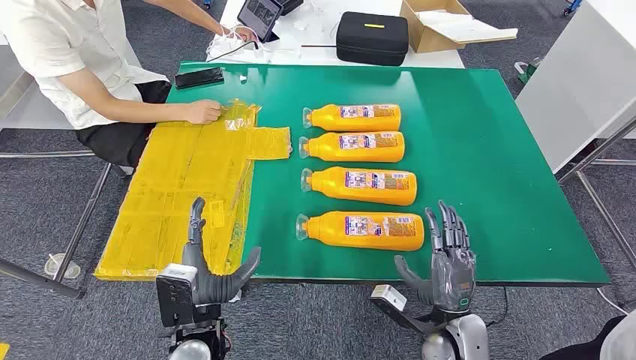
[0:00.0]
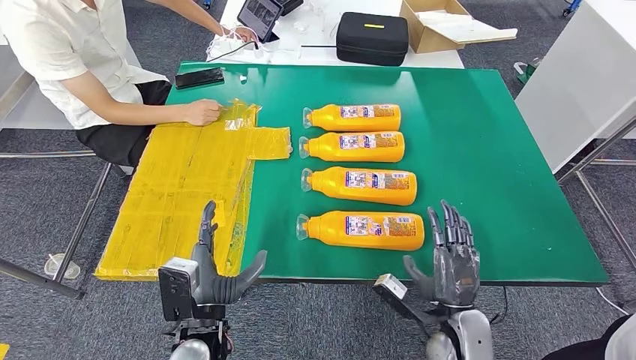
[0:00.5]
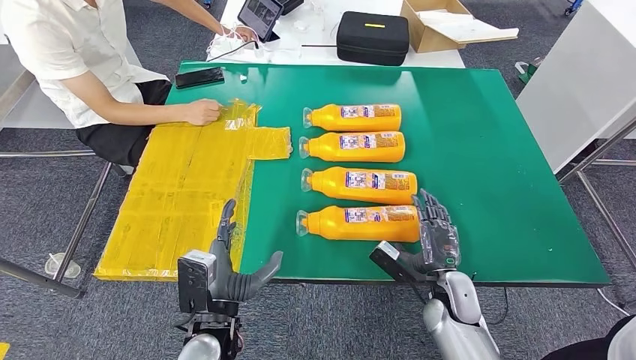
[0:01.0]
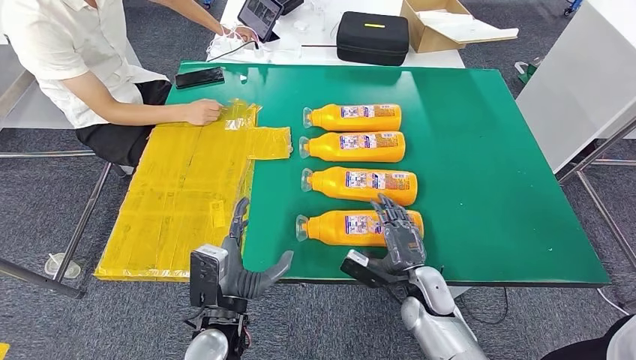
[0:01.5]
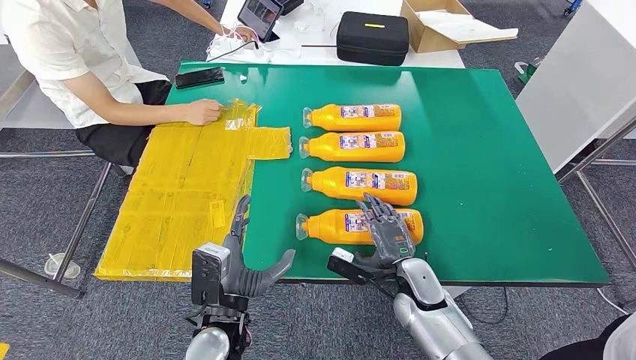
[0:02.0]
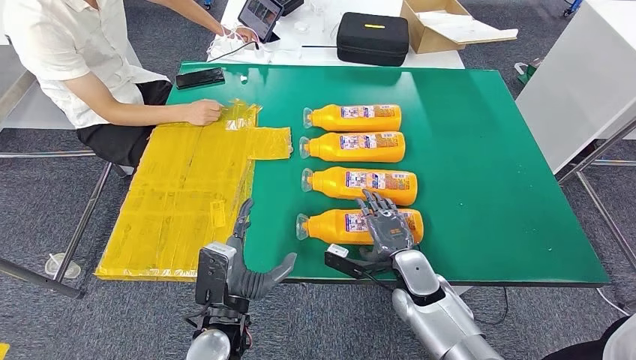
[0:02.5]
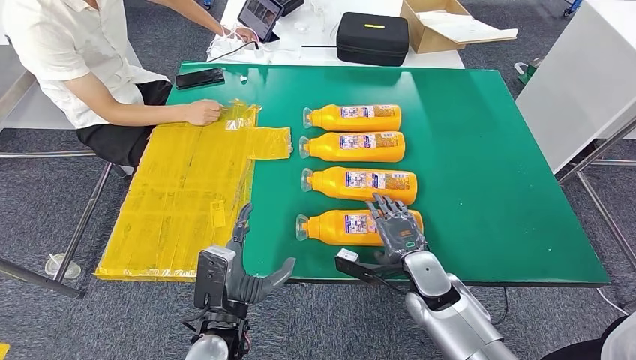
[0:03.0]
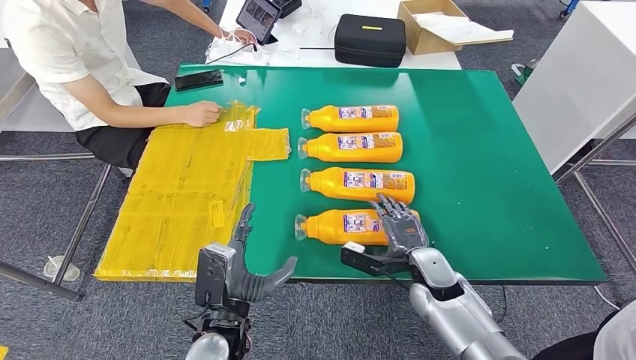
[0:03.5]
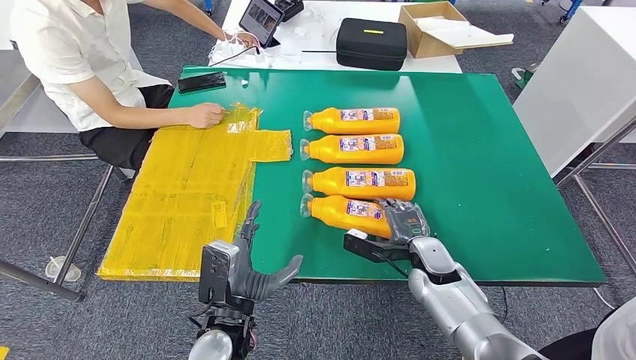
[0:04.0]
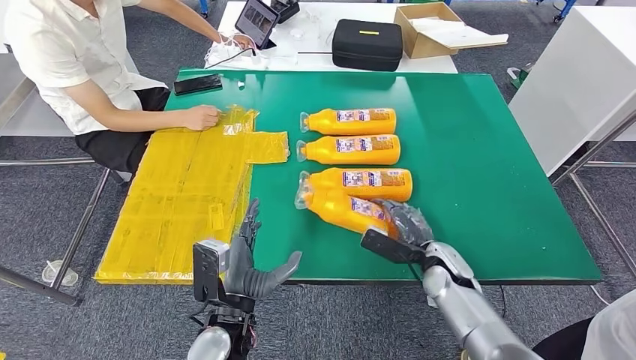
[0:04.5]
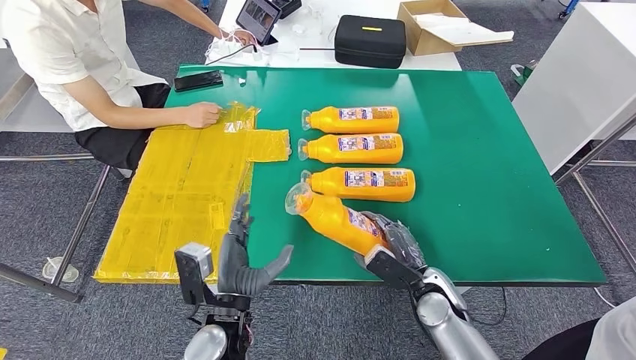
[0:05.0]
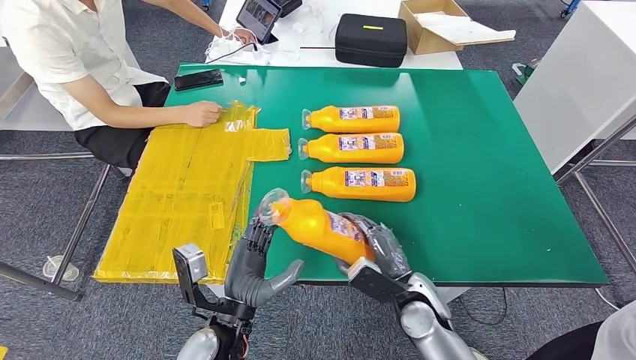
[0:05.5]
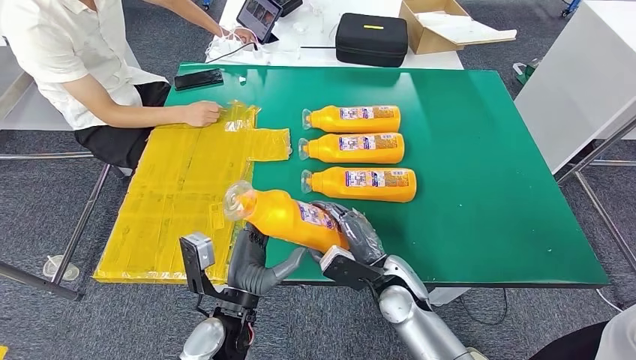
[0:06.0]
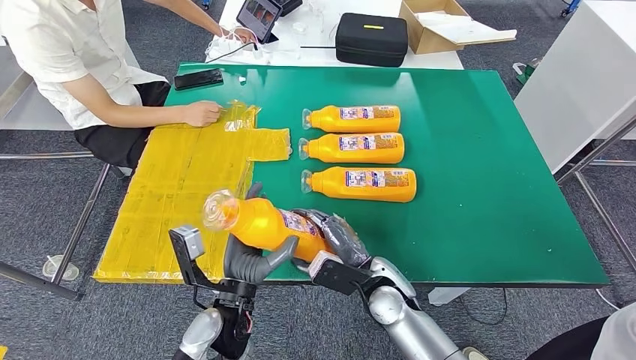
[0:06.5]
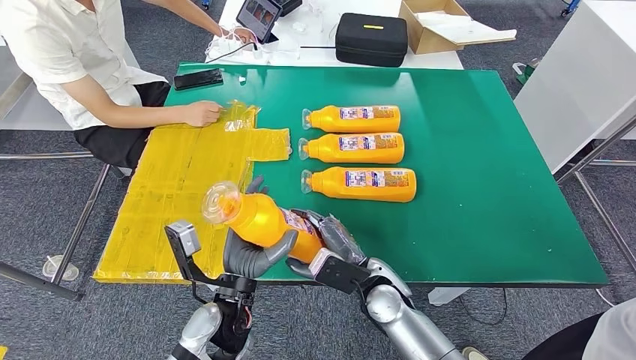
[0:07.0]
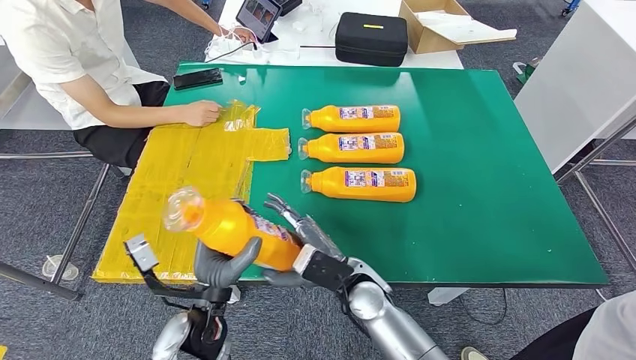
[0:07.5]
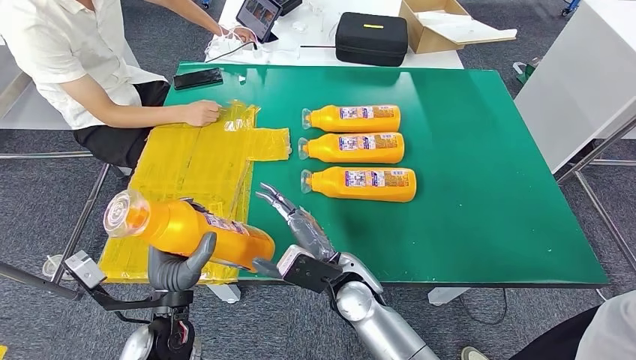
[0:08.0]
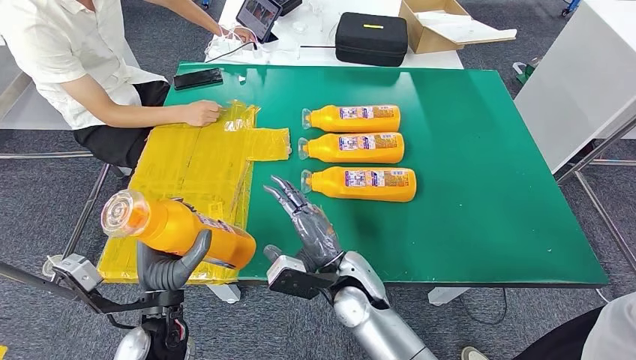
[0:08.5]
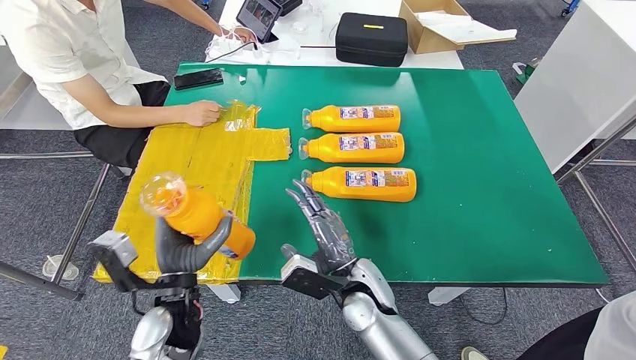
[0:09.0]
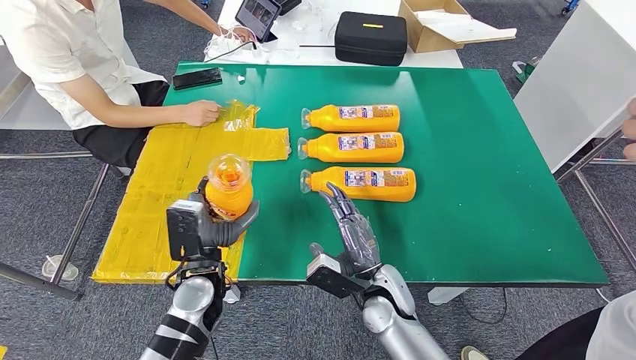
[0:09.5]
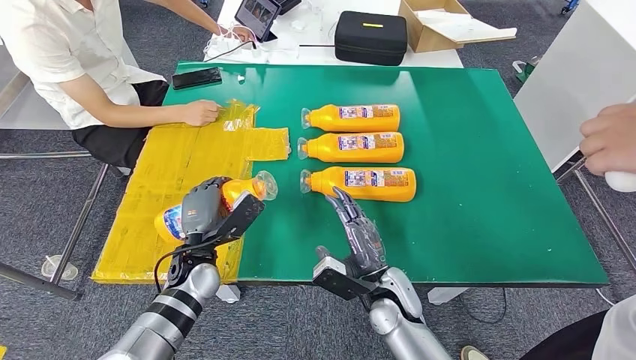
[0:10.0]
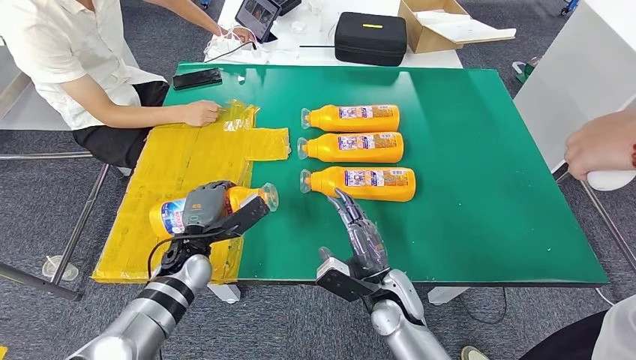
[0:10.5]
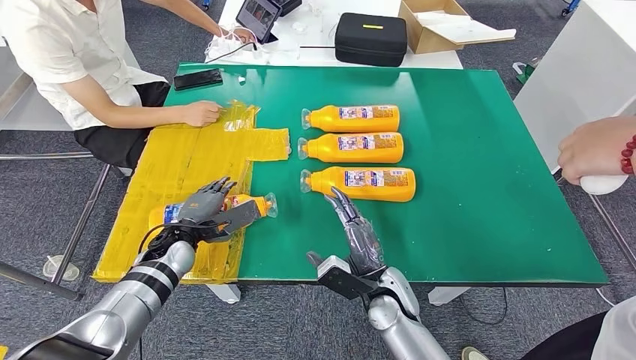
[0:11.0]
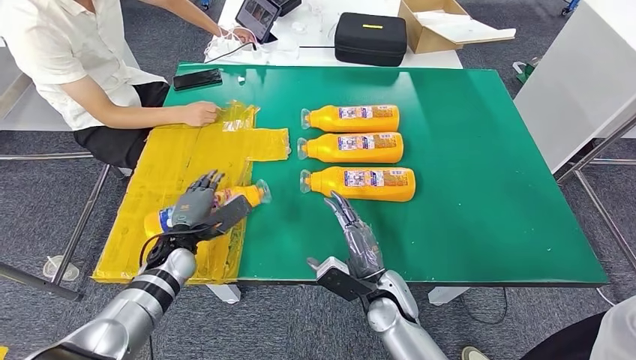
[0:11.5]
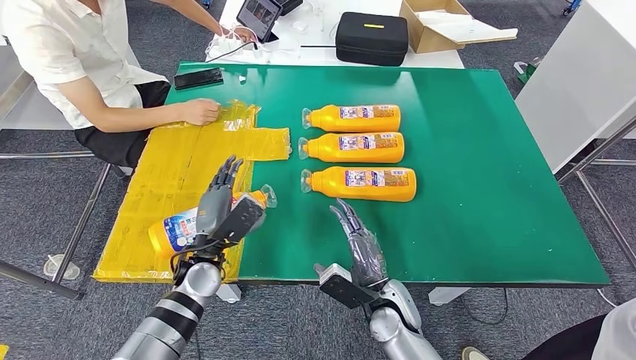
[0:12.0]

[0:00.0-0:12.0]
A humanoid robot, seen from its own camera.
Step, 0:00.0 to 0:06.0: Take the fast-moving consumer goods bottle from the table.
Step, 0:07.0 to 0:11.5: Flip the fast-moving consumer goods bottle to the front side.
0:06.0 to 0:08.0: The hands both shift to the left by some 10 cm.
0:08.0 to 0:10.0: The right hand shifts some 10 cm to the right and downward, while the left hand is displaced forward by about 10 cm.
0:10.0 to 0:12.0: The left hand travels to the left and back again, roughly 5 cm each way.

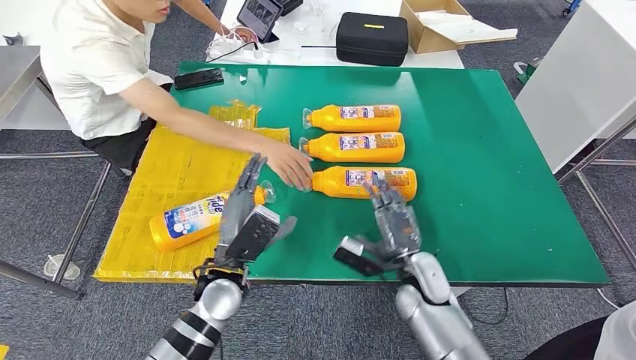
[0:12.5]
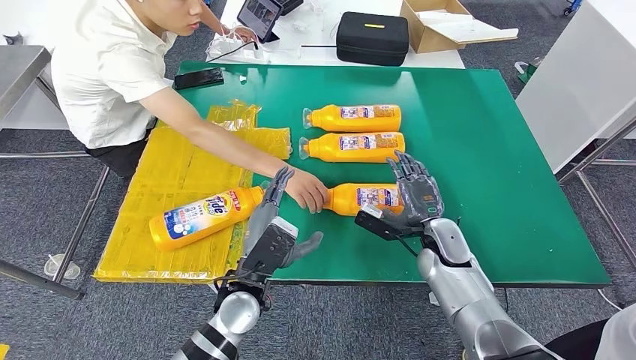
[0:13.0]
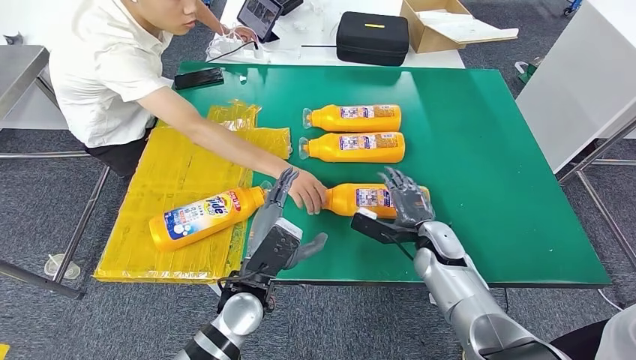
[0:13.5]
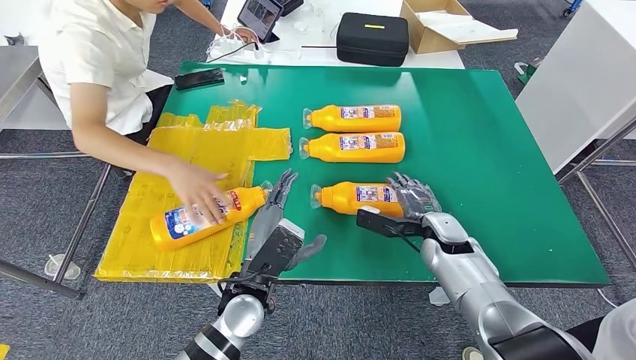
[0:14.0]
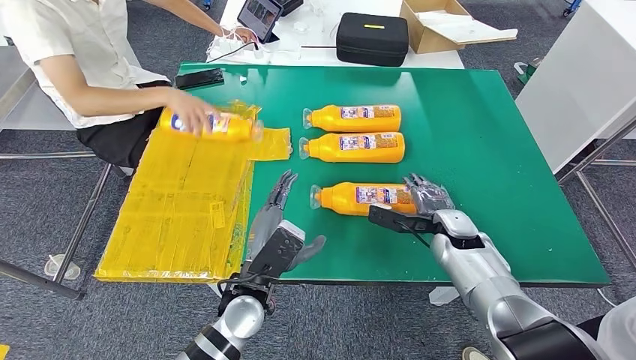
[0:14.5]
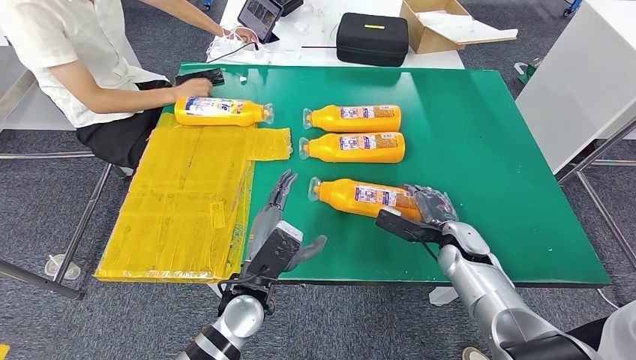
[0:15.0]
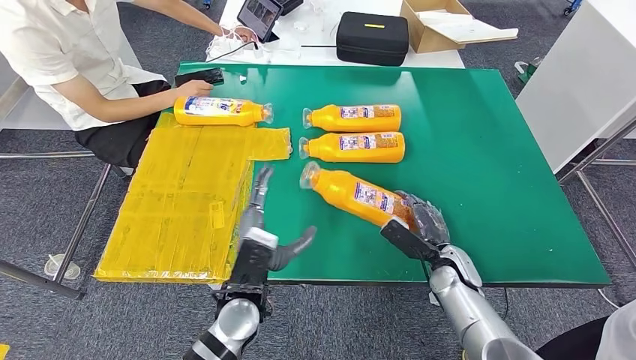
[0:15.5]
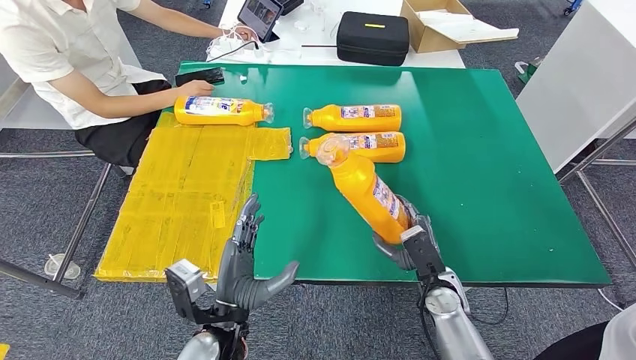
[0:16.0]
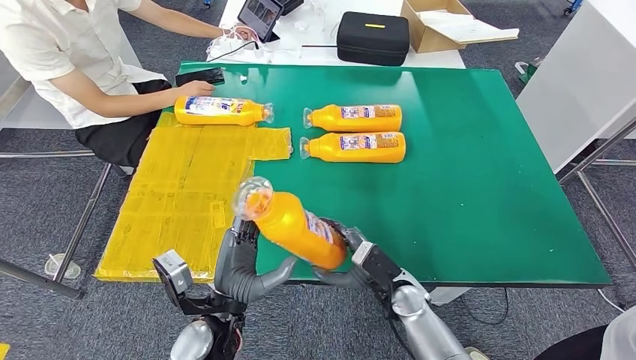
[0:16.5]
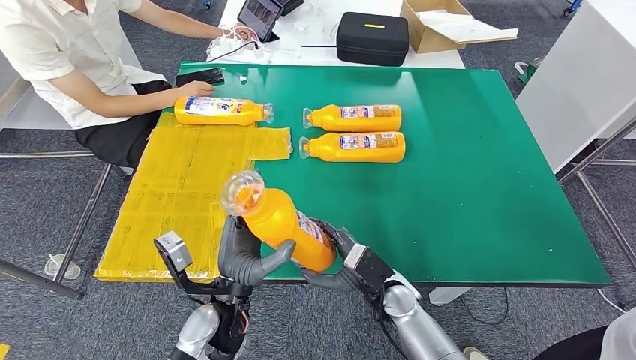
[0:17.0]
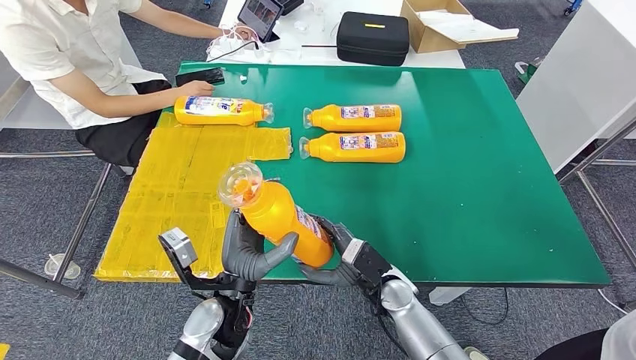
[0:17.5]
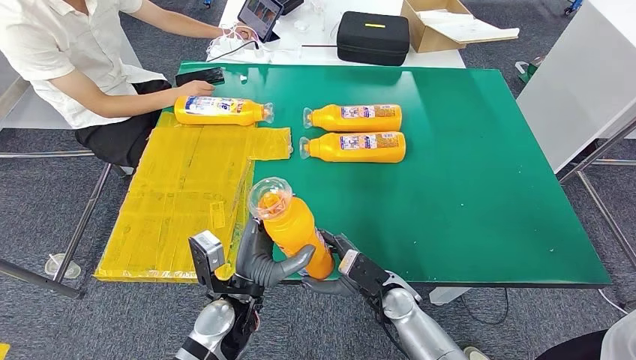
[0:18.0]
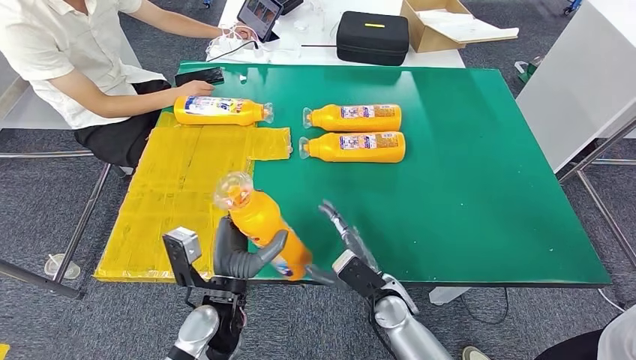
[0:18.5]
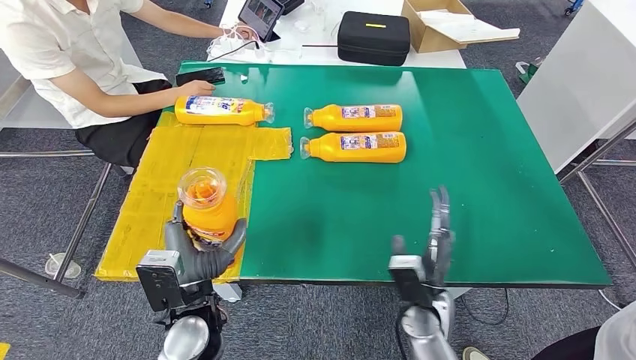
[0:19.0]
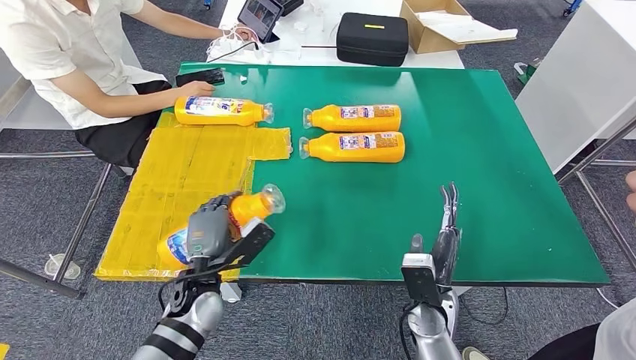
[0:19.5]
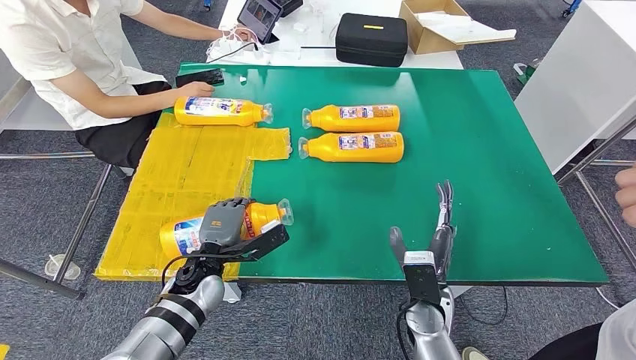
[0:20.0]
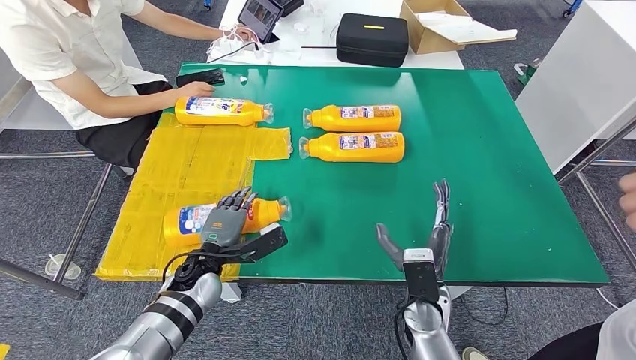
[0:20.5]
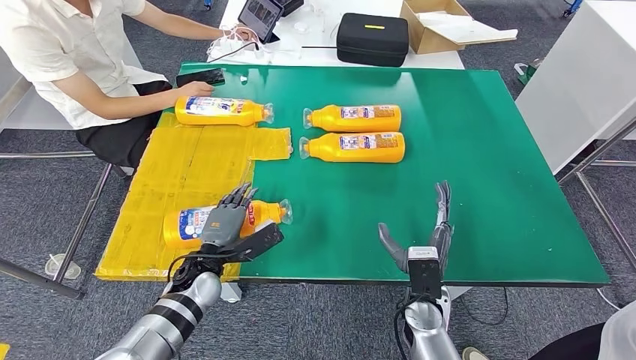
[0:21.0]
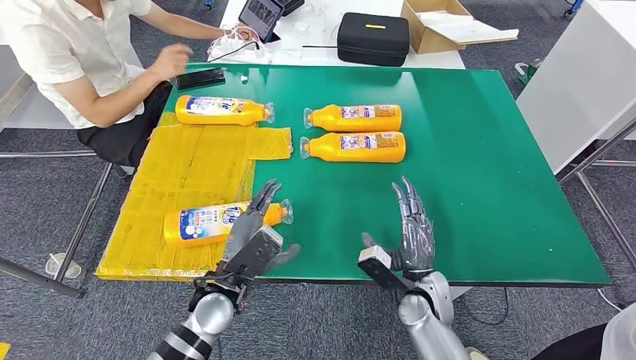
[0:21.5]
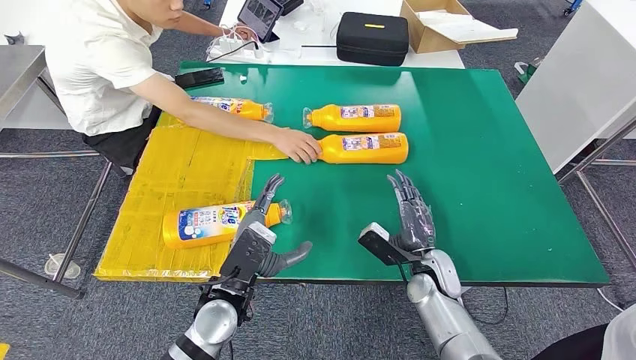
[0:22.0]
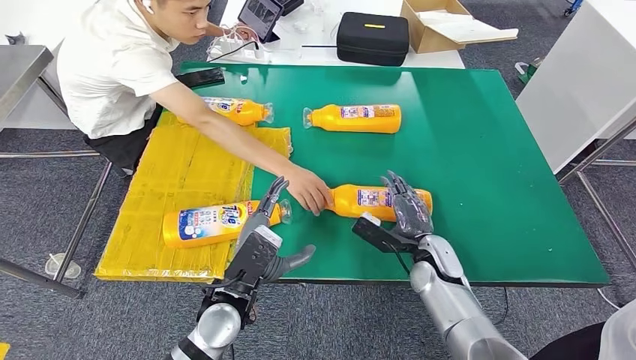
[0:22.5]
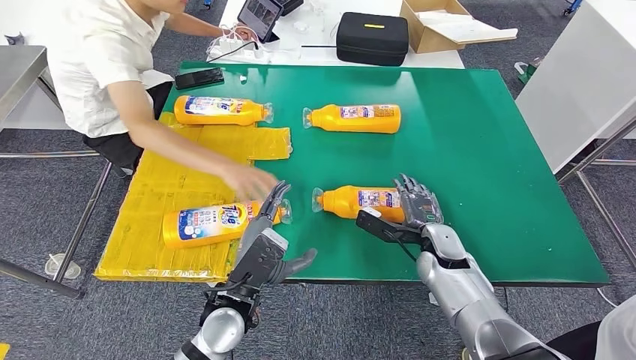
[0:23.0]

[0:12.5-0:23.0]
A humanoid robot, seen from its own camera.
Step, 0:15.0 to 0:16.5: Pick up the fast-moving consumer goods bottle from the table.
Step, 0:17.0 to 0:20.0: Flip the fast-moving consumer goods bottle to the front side.
0:19.0 to 0:21.0: The left hand shifts about 10 cm forward and downward.
